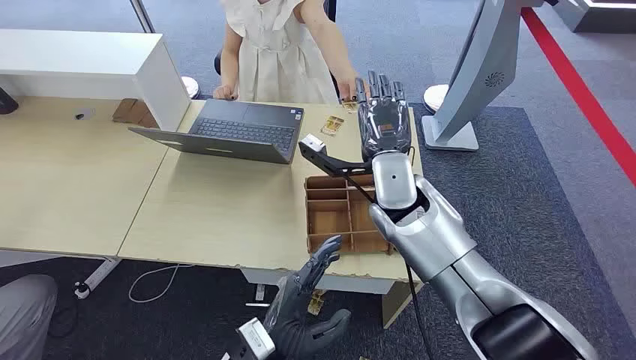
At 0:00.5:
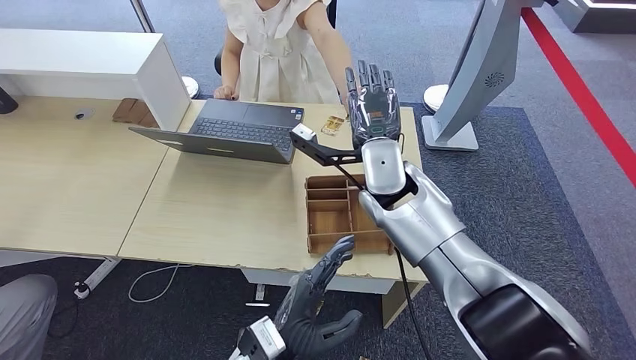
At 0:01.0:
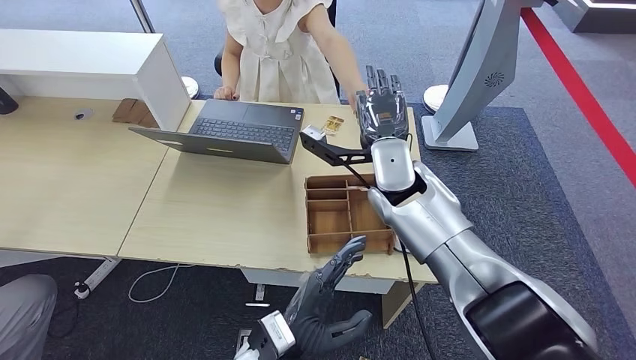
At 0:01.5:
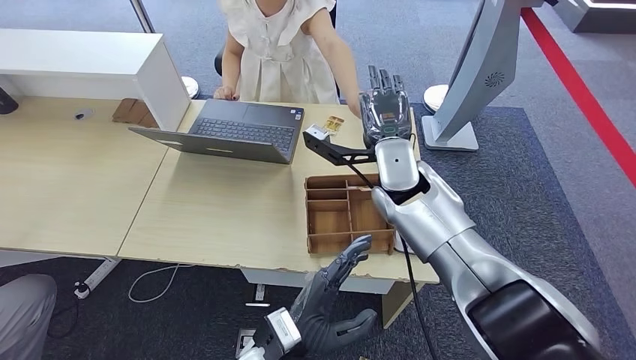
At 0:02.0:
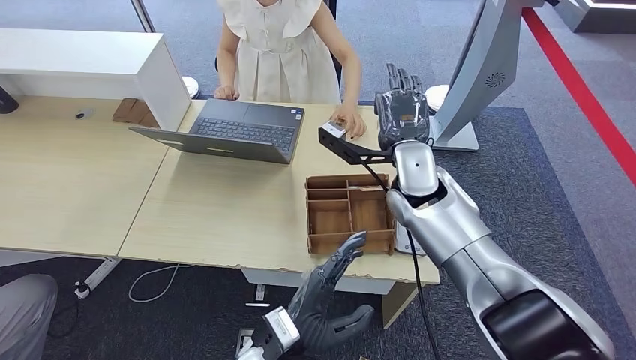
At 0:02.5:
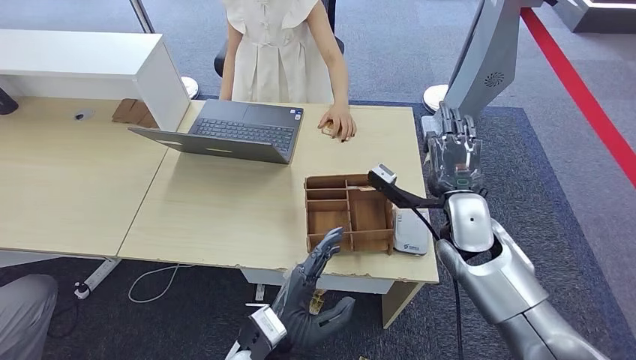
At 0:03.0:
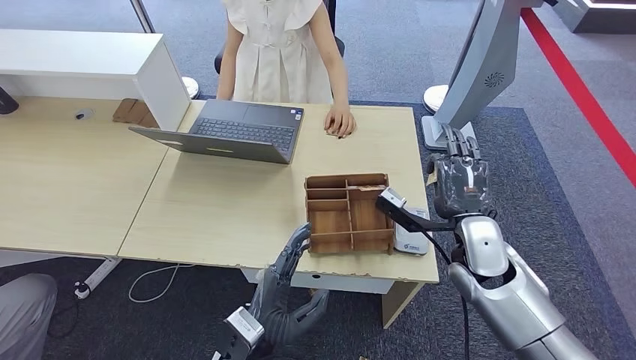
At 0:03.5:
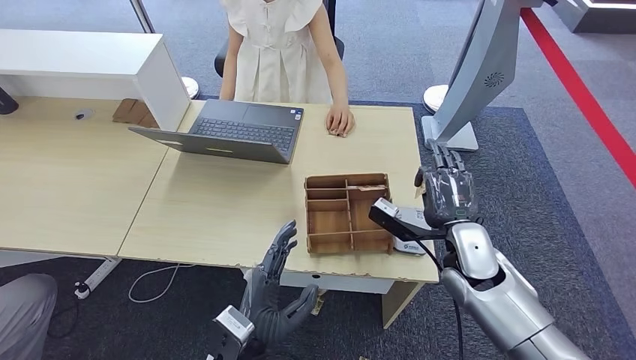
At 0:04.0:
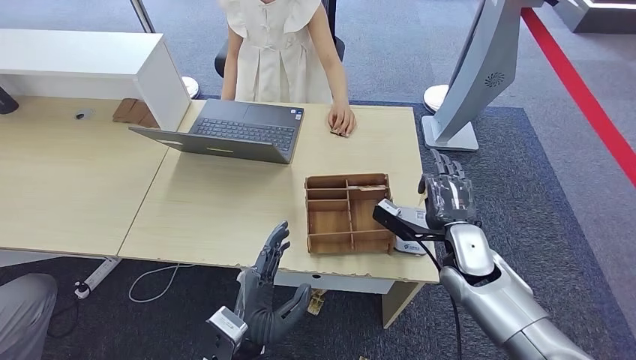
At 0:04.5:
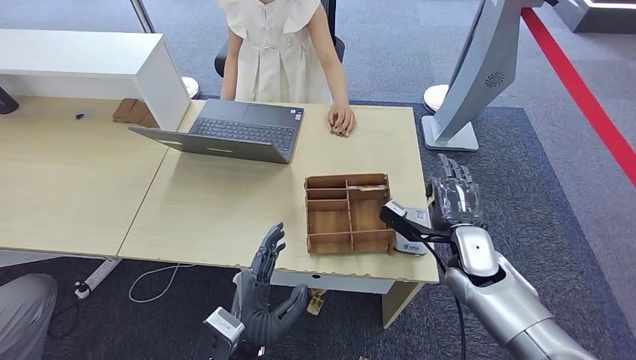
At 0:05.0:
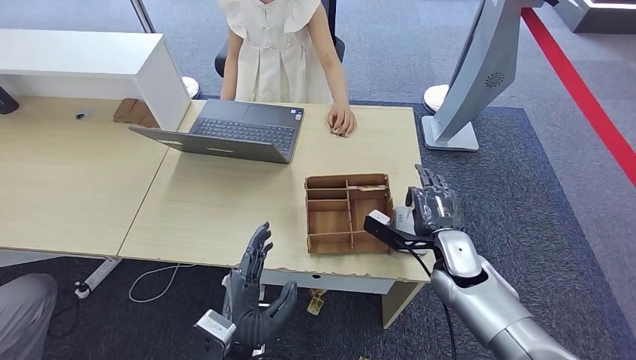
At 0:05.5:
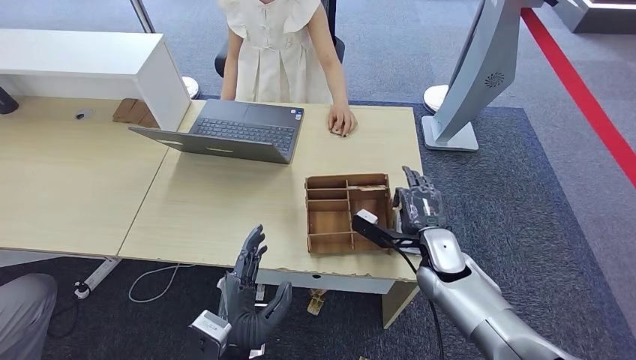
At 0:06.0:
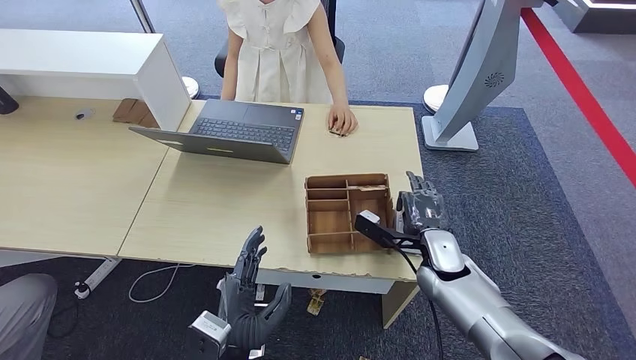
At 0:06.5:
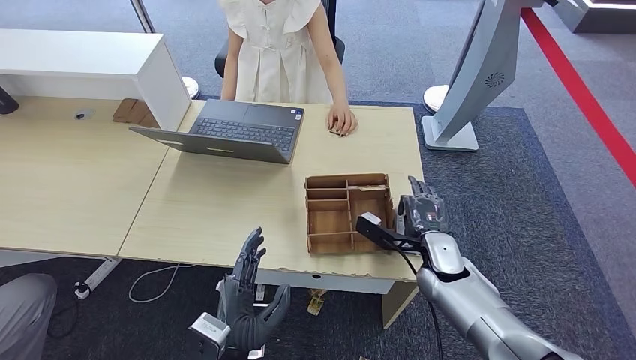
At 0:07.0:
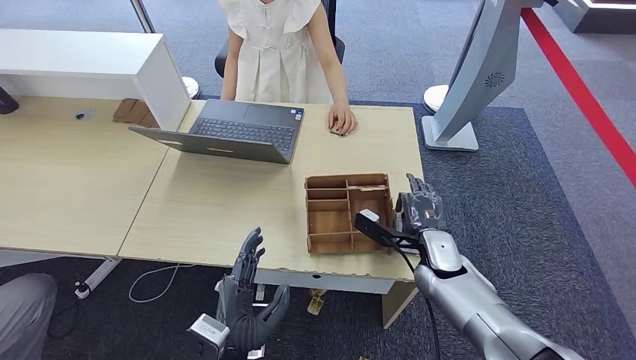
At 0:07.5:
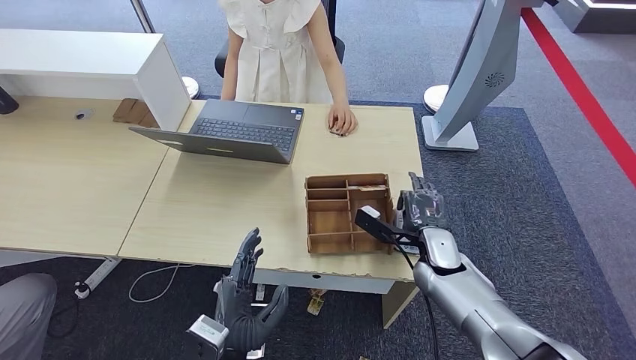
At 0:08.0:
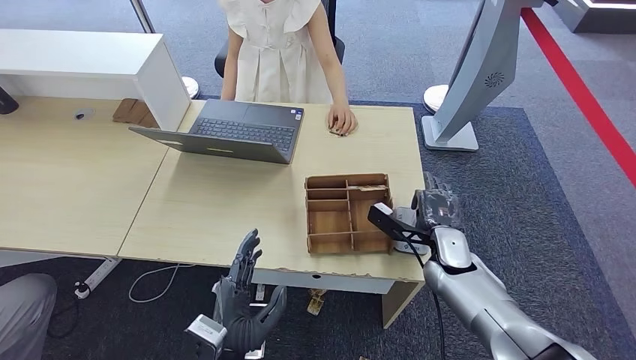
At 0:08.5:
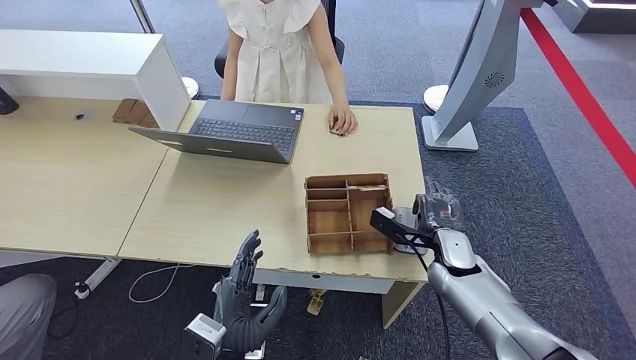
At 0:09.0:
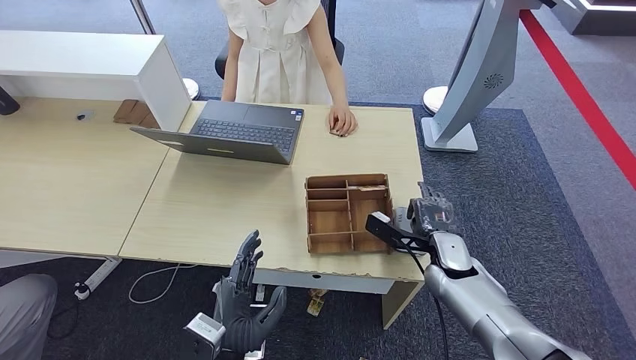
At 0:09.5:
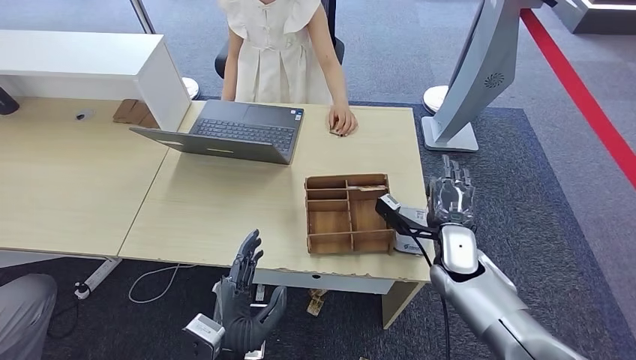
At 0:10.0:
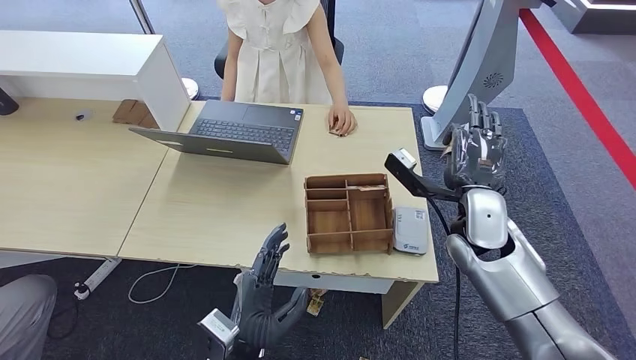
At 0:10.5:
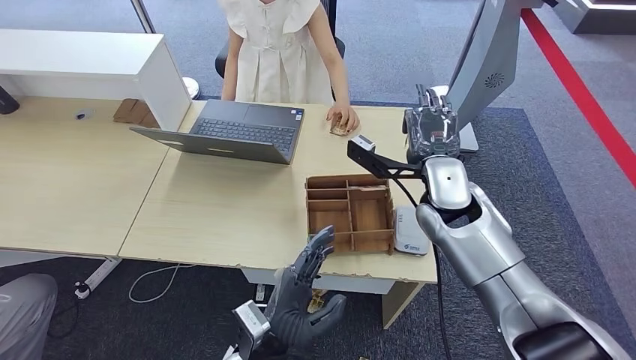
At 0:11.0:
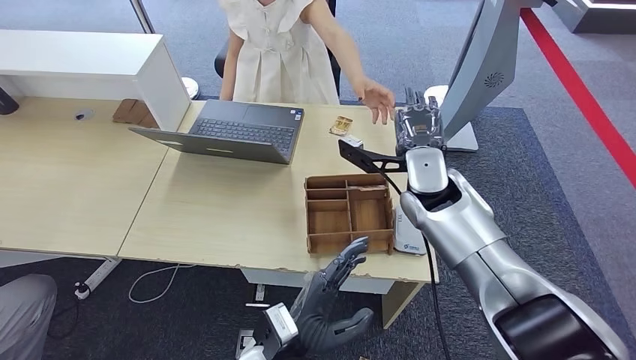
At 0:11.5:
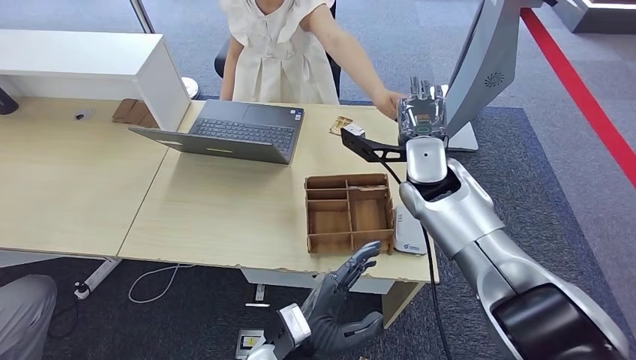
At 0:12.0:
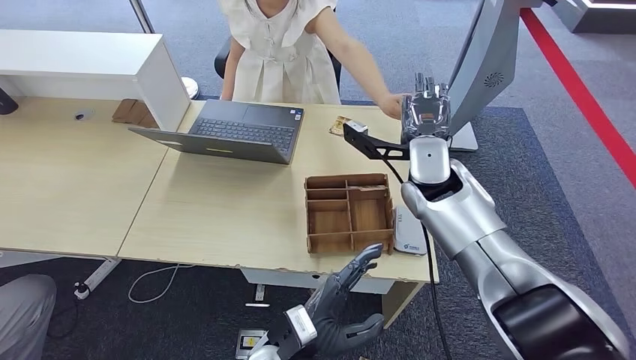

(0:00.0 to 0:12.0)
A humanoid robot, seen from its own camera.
Step, 0:00.0 - 0:02.5: Take the ID card from the person's hand.
Step, 0:03.0 - 0:10.0: Place the ID card on the card reader.
0:02.0 - 0:04.0: The left hand is displaced to the left by some 5 cm; the right hand moves downward, to the right and backward, approximately 20 cm.
0:04.0 - 0:08.0: The hands move only a little.
0:08.0 - 0:10.0: The right hand is displaced upward by roughly 10 cm.
0:10.0 - 0:12.0: The left hand heads to the right, covering roughly 5 cm, while the right hand heads forward, to the left and upward, covering some 10 cm.

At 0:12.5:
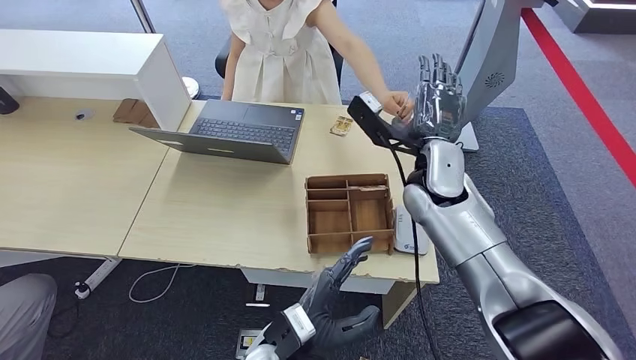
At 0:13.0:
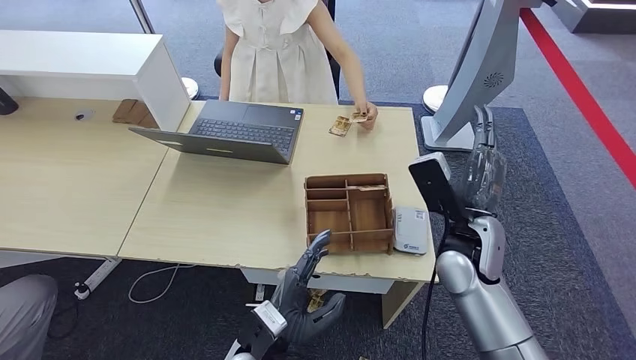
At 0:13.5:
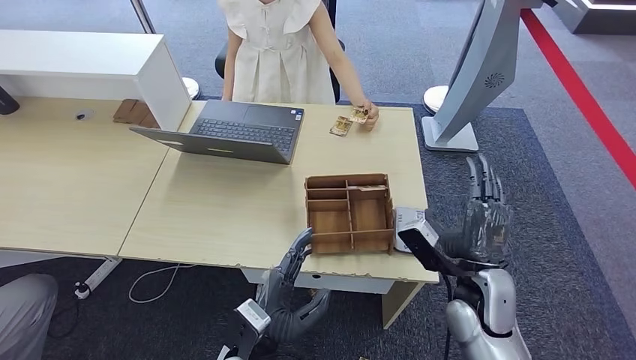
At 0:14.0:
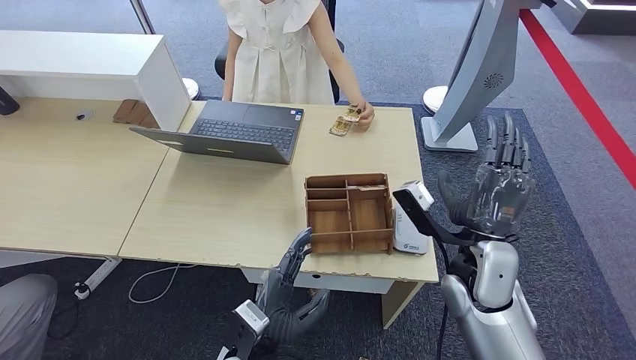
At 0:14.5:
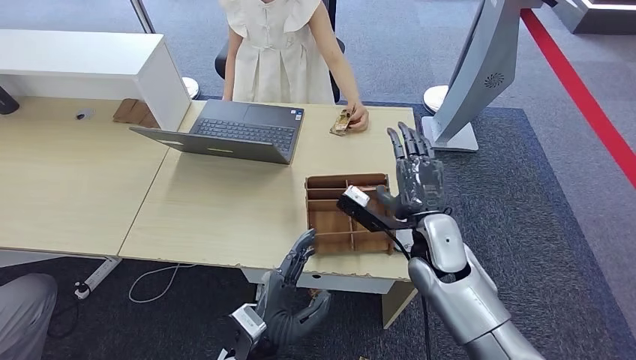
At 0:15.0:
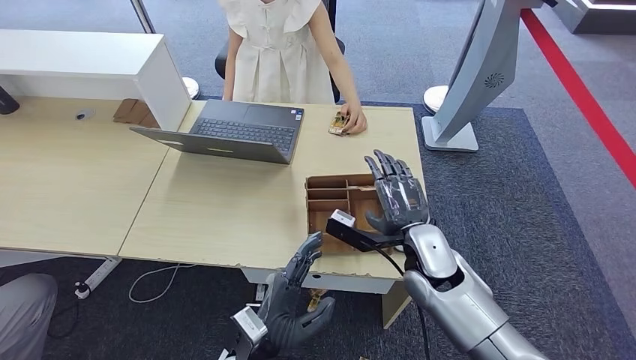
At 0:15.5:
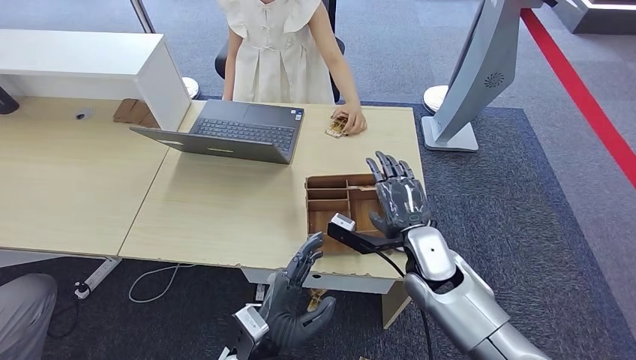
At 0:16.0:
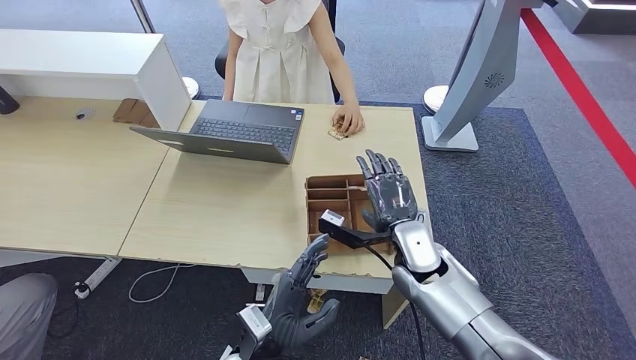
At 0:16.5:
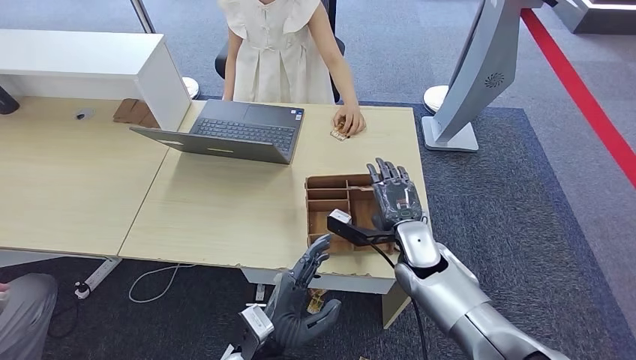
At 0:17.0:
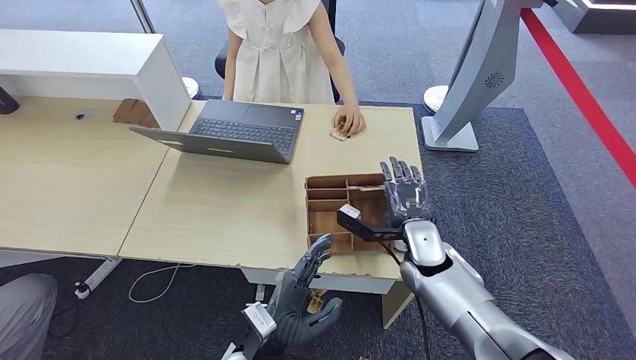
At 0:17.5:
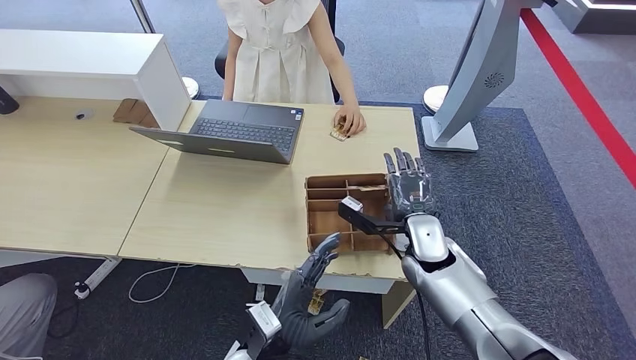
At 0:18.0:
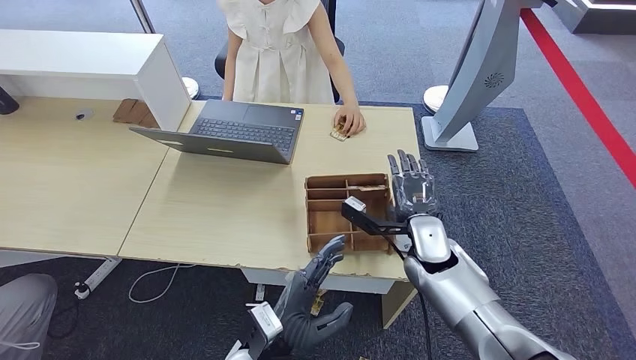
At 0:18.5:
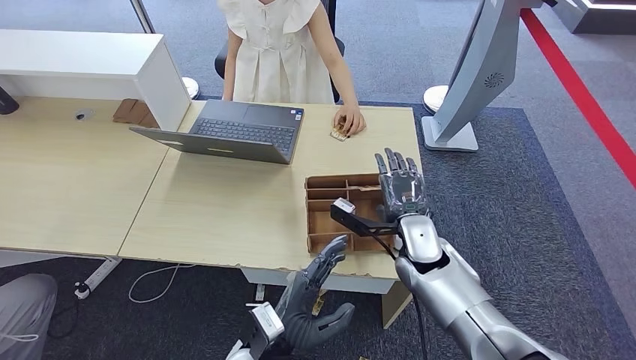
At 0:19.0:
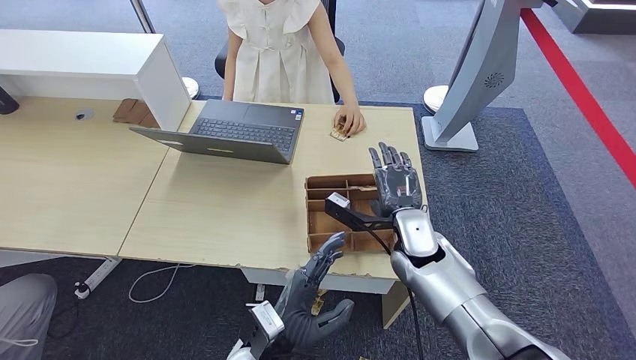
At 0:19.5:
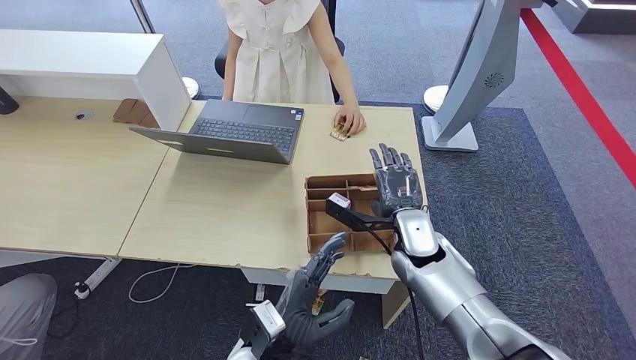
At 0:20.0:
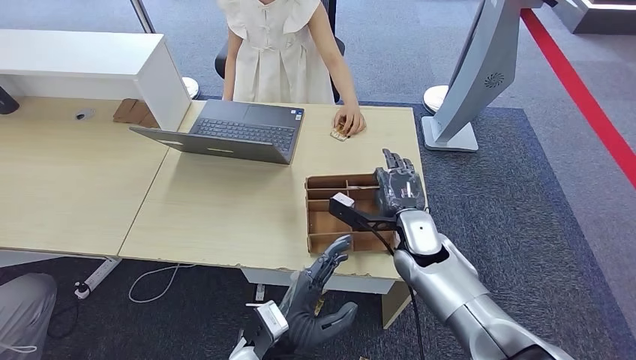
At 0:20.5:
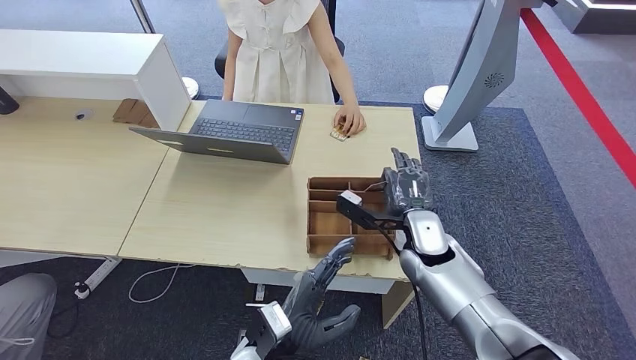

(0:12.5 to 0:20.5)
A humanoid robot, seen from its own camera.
0:12.5 - 0:14.5: The right hand goes about 15 cm backward and downward.
0:14.5 - 0:16.5: The right hand is displaced downward by some 5 cm.
0:16.5 - 0:20.5: The hands make only small movements.
